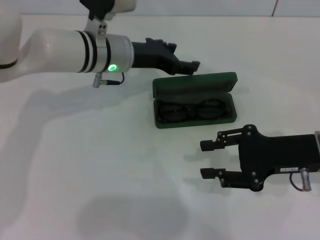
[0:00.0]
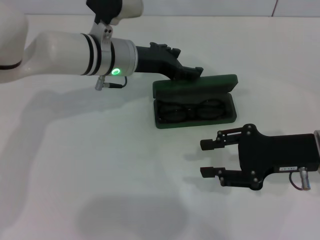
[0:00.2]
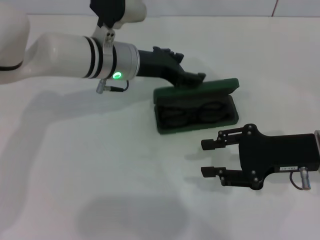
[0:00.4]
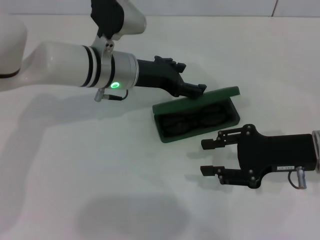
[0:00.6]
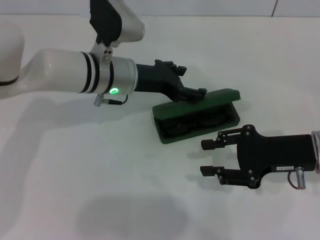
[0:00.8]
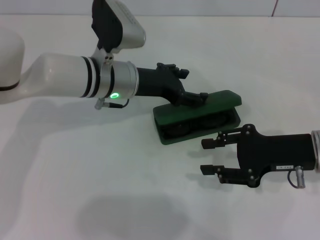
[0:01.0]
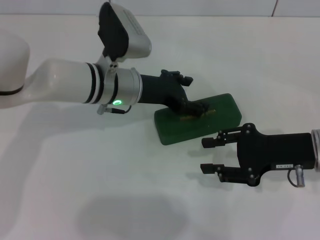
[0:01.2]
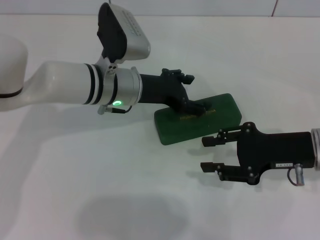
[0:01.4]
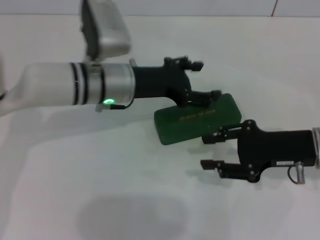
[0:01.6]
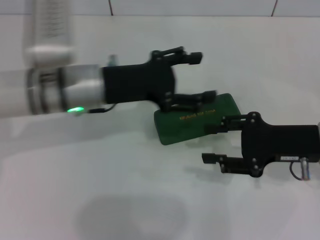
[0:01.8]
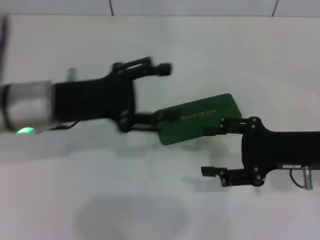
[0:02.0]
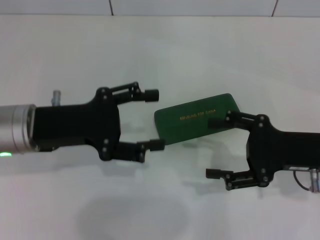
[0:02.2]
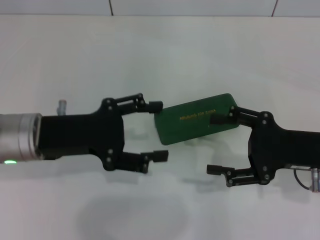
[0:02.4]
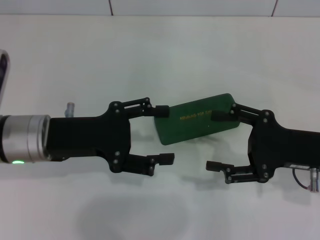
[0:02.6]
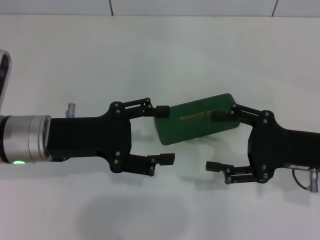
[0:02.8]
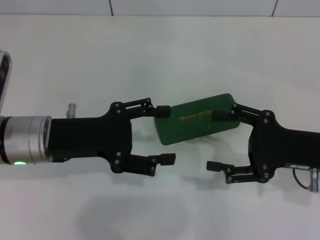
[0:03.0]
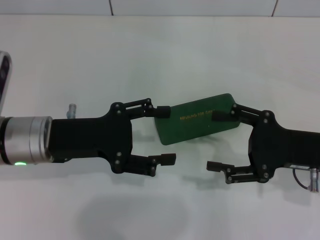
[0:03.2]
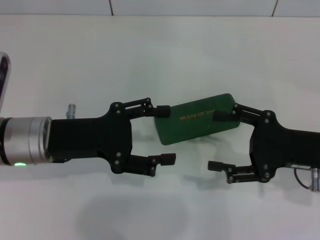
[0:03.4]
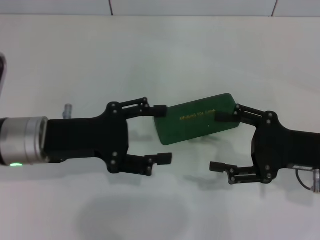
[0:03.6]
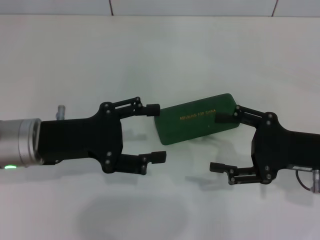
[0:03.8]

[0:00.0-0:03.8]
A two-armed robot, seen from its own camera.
0:00.0 to 0:01.2: The grippers stay close to where they were, moving slightly.
0:01.2 to 0:02.6: The right gripper opens up; the left gripper travels backward and to the left by approximately 15 cm.
0:02.6 to 0:03.8: Neither gripper changes place.

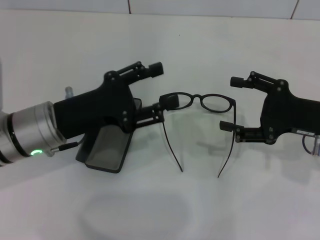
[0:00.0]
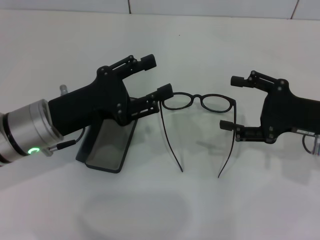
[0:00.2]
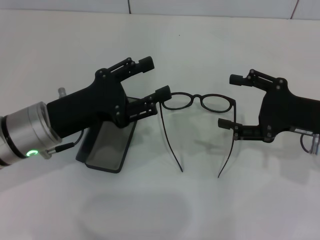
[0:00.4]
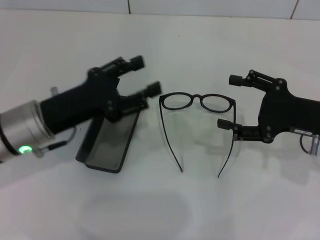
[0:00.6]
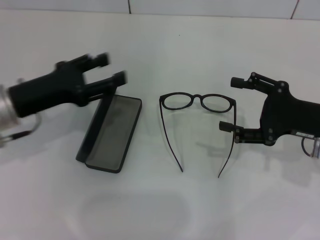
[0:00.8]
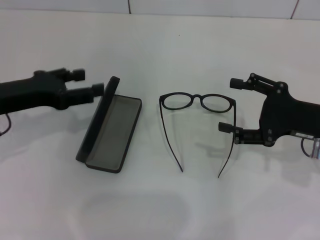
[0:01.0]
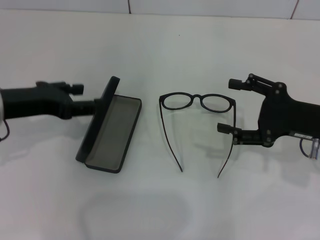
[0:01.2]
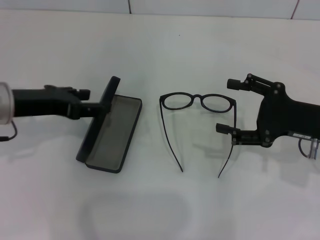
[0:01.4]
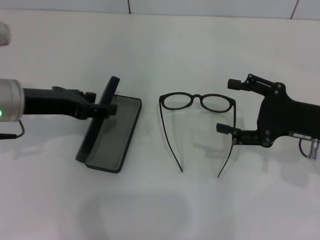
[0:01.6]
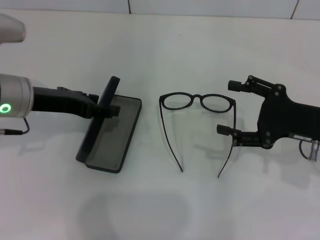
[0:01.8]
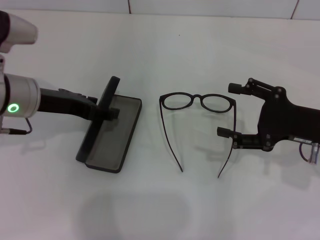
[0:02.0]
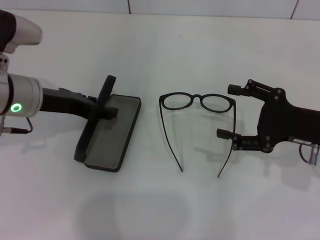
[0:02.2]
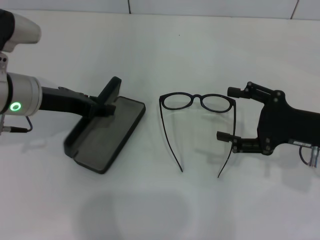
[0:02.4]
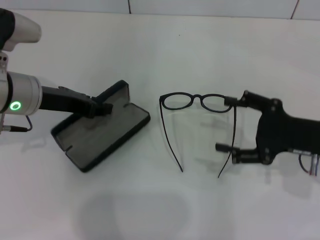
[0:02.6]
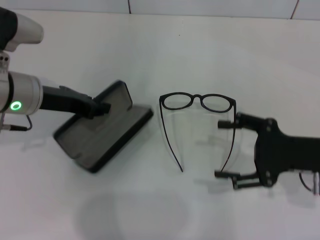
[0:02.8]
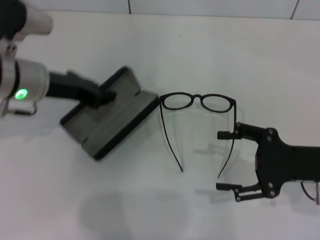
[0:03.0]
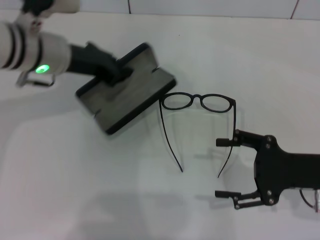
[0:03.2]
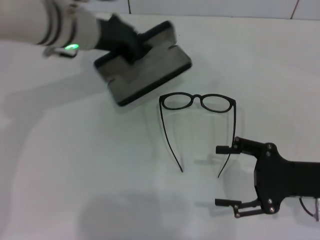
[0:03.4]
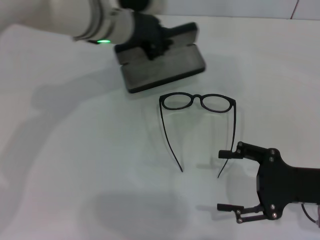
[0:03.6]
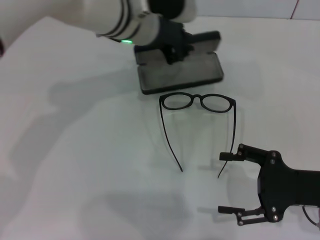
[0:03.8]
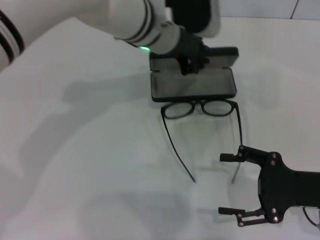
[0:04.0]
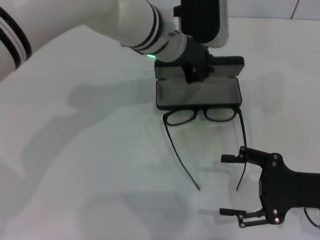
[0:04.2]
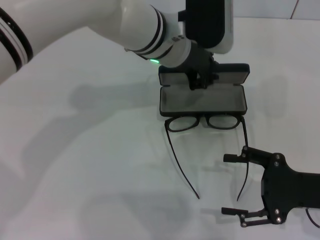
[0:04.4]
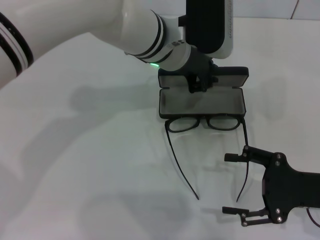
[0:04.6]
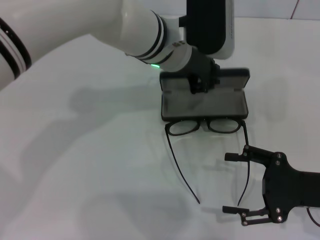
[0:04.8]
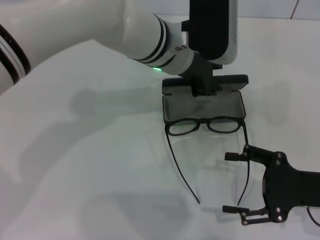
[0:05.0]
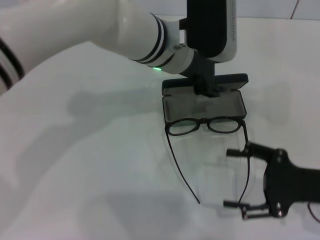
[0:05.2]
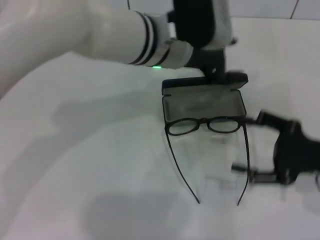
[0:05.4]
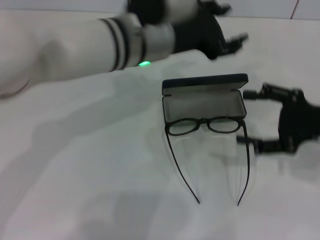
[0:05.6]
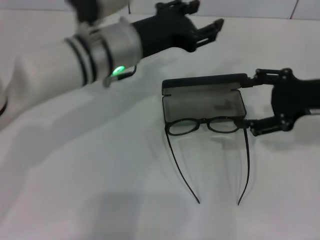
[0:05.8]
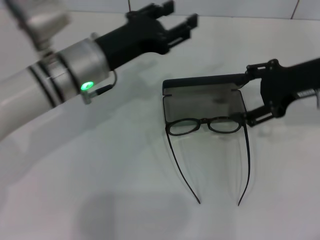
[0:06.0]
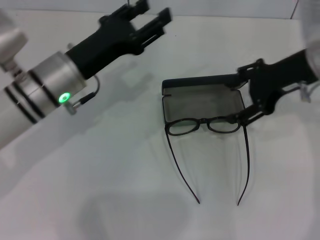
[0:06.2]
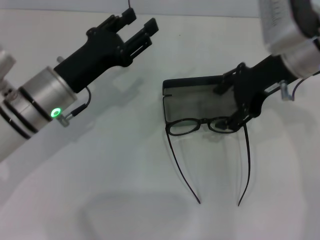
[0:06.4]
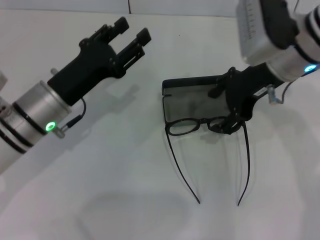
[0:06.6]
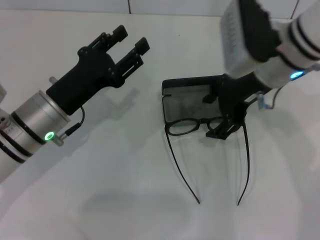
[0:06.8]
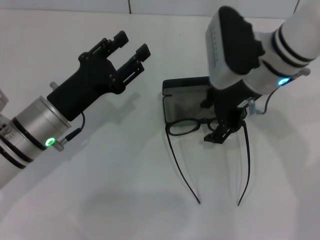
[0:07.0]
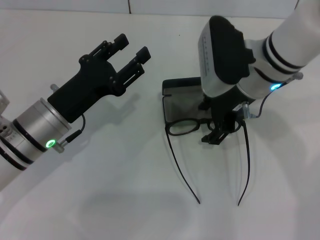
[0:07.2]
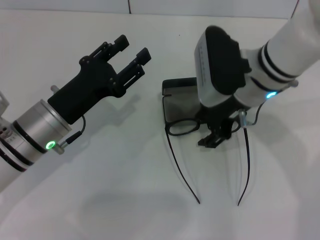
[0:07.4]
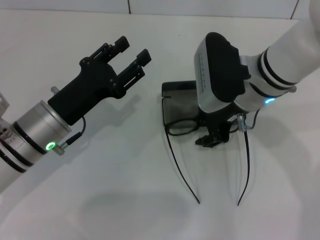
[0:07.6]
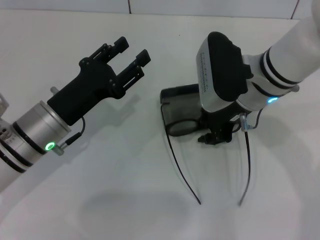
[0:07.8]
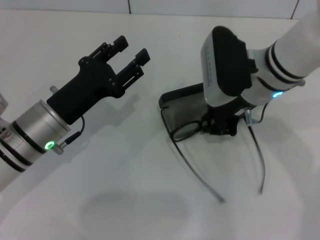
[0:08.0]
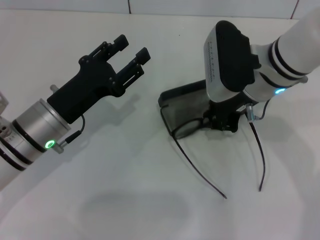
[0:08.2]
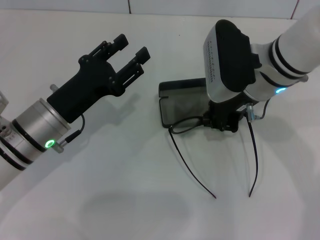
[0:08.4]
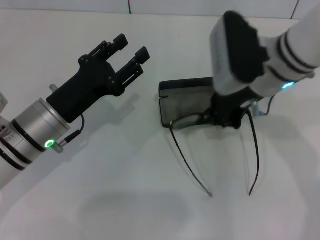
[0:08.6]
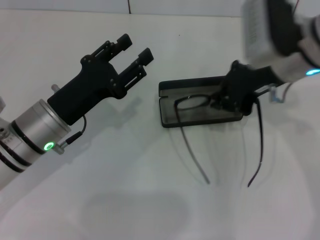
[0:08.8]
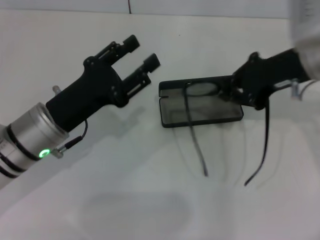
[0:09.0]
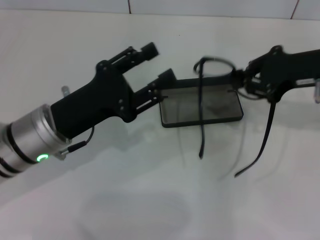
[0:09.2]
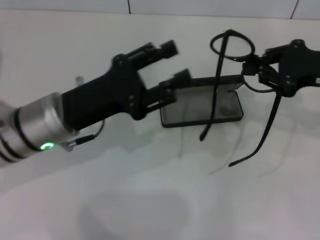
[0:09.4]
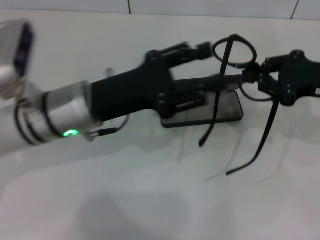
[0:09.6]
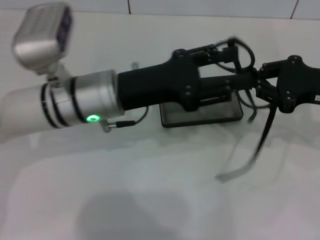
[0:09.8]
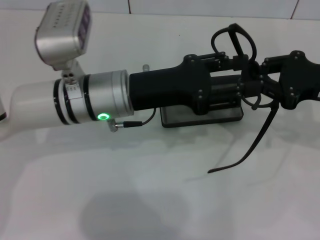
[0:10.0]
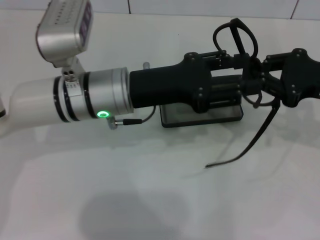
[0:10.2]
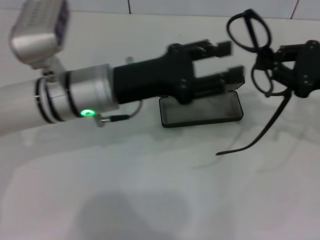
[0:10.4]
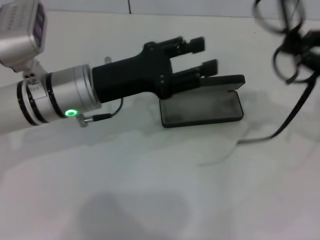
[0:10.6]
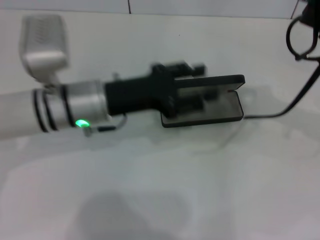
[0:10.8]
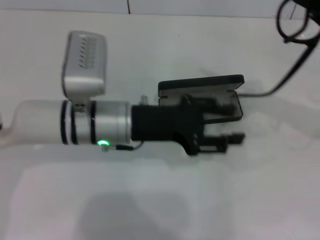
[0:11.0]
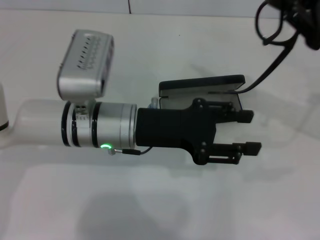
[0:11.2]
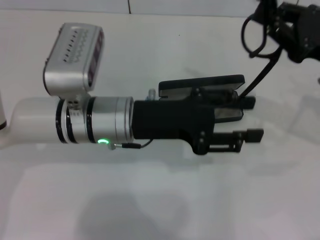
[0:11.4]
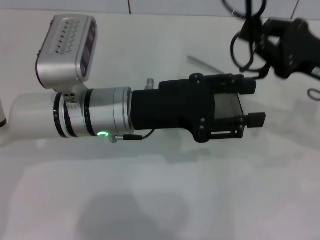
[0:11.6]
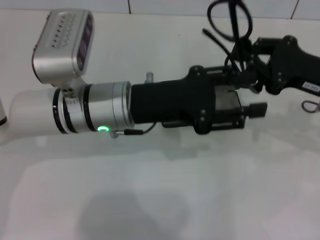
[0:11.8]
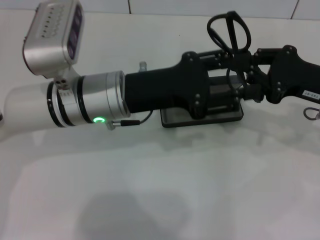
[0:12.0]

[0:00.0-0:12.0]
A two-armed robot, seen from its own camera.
Step, 0:00.0 to 0:02.4: Grab the glasses case with your left hand.
Step, 0:02.6 to 0:04.8: Place the glasses case in the center of the table with your left hand.
Step, 0:05.0 to 0:07.8: Grab the eyeglass frame with your right hand.
0:00.0 to 0:01.6: The left gripper moves approximately 5 cm.
0:01.6 to 0:03.0: The left gripper closes up.
0:03.0 to 0:04.4: The left gripper travels to the right by approximately 20 cm.
0:04.4 to 0:06.0: The left gripper travels to the left and backward by approximately 15 cm, and opens; the right gripper heads forward and upward, covering about 20 cm.
0:06.0 to 0:07.6: The left gripper goes roughly 10 cm downward, backward and to the left; the right gripper heads to the left, covering some 15 cm.
0:07.6 to 0:09.0: The right gripper is displaced to the right and upward by some 10 cm, and closes its fingers.
0:09.0 to 0:10.4: The left gripper shifts about 10 cm to the right and upward. The right gripper heads to the right, covering approximately 10 cm.

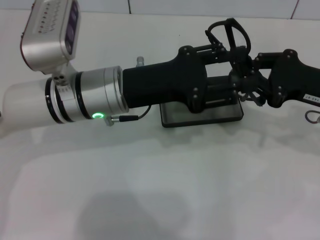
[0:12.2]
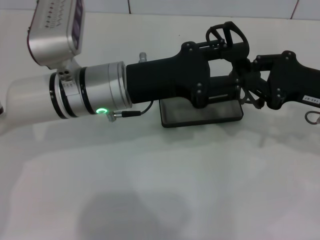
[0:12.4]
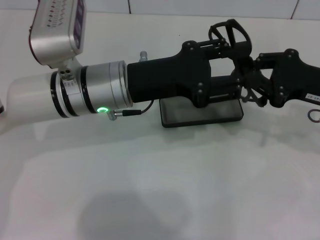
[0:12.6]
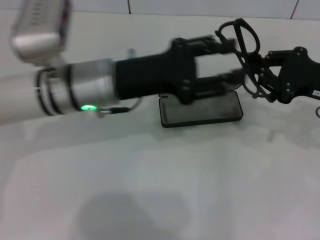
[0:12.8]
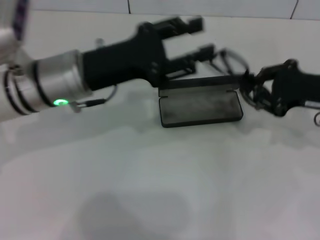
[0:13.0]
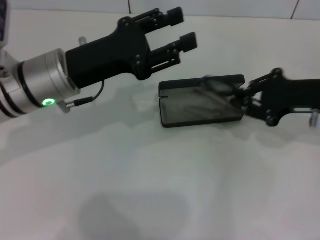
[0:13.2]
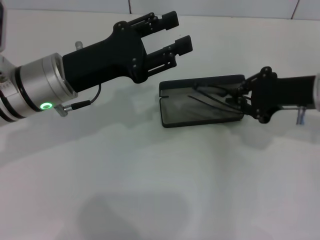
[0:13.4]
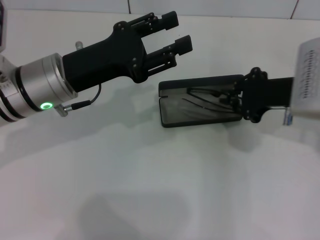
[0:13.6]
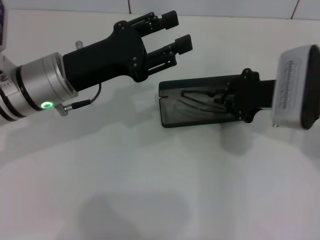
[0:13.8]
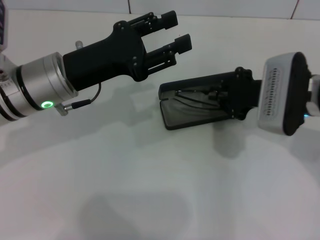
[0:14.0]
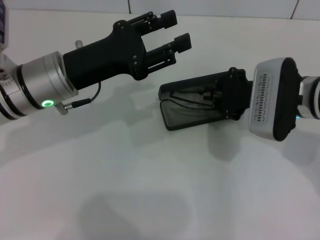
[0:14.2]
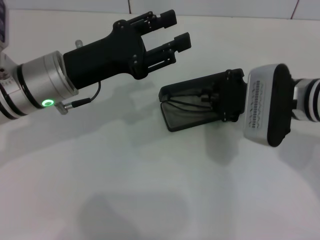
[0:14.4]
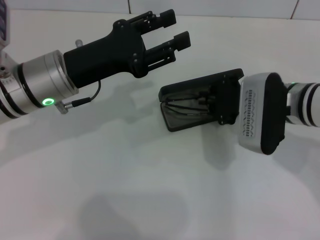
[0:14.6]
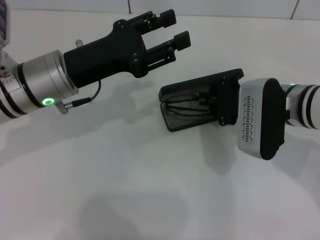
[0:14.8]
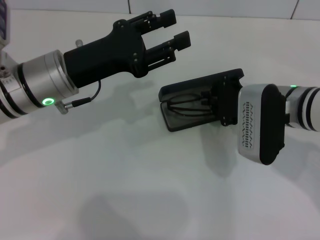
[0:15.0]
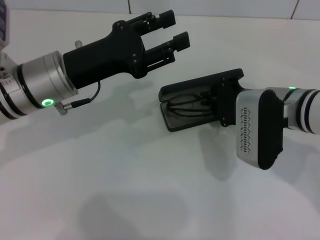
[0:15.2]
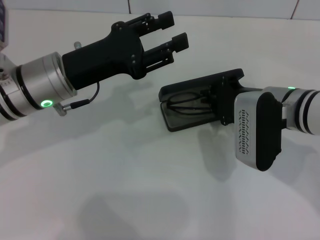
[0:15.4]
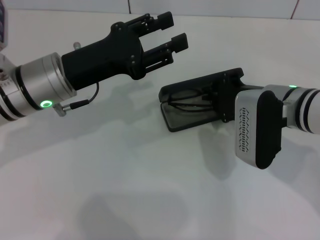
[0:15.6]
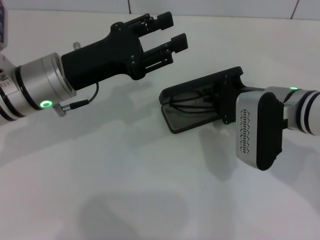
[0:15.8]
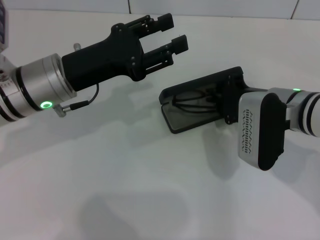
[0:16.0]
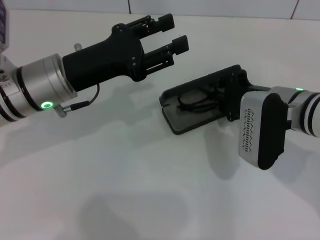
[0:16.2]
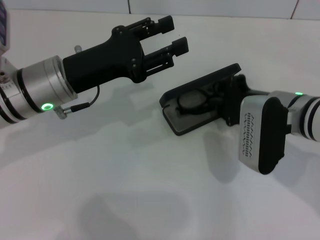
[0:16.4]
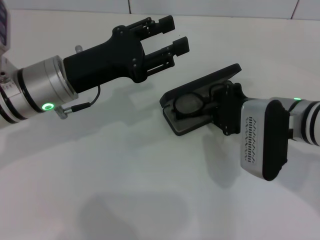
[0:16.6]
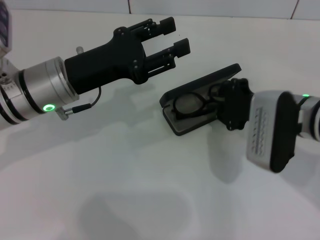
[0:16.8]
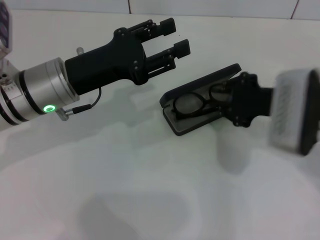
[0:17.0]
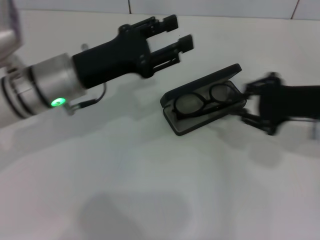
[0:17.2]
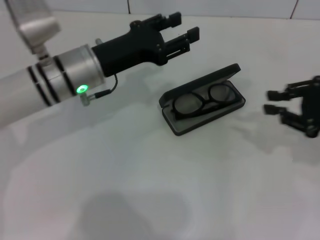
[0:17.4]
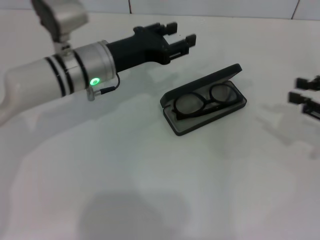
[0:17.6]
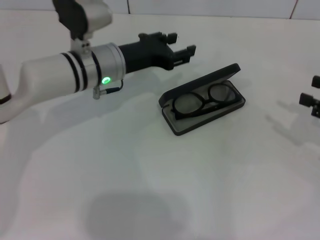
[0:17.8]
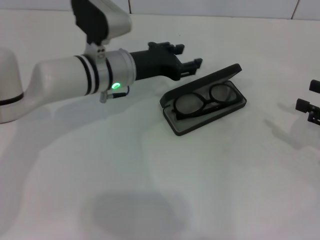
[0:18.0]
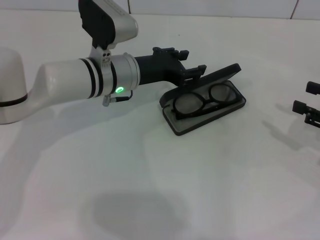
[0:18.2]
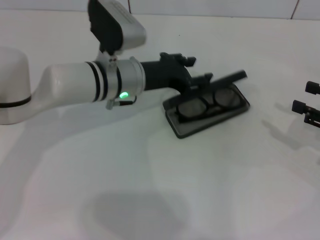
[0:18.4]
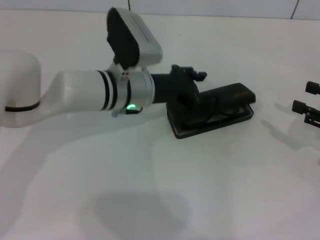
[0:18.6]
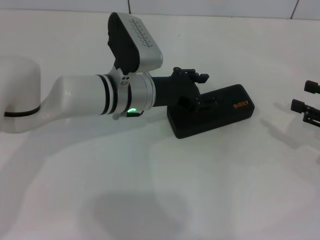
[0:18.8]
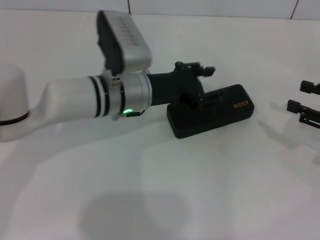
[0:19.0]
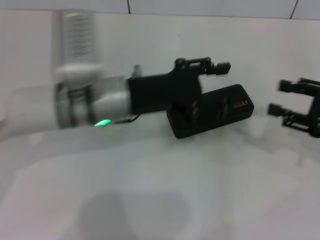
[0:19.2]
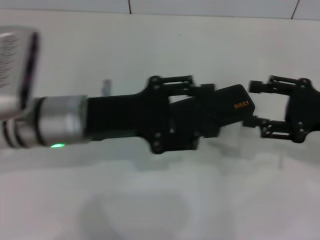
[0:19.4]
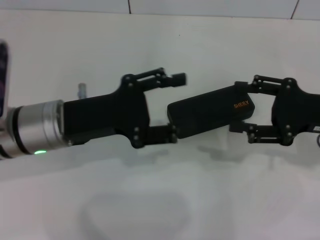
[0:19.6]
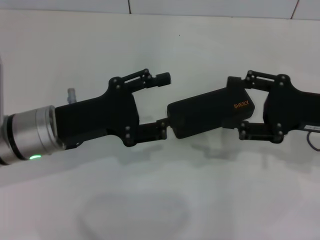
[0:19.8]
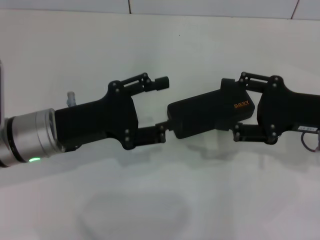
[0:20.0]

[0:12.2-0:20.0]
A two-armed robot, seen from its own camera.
Step, 0:12.8 to 0:16.8: Put the glasses into the case with your right hand.
Step, 0:17.0 to 0:19.0: Close the glasses case with your left hand.
0:12.2 to 0:13.8: Both grippers move to the left, roughly 5 cm.
0:15.4 to 0:16.8: The grippers stay close to where they were, moving slightly.
0:16.8 to 0:18.4: The left gripper moves to the right and forward, about 10 cm. Meanwhile the right gripper shifts approximately 20 cm to the right, and opens.
0:18.4 to 0:20.0: The right gripper moves to the left, about 10 cm; the left gripper travels backward and to the left by some 15 cm.
